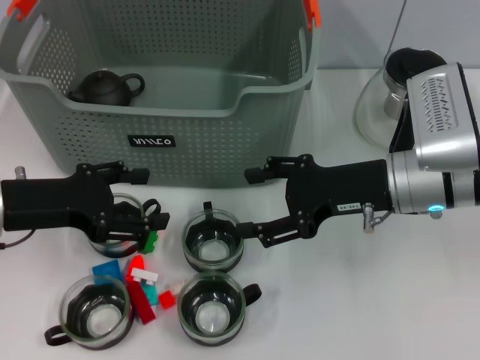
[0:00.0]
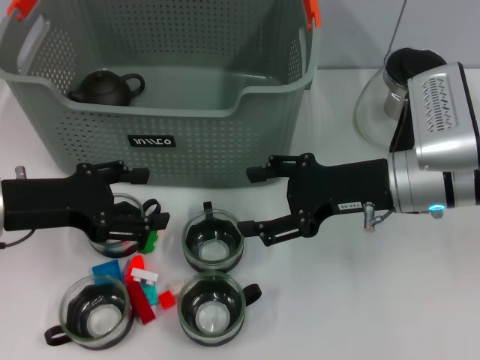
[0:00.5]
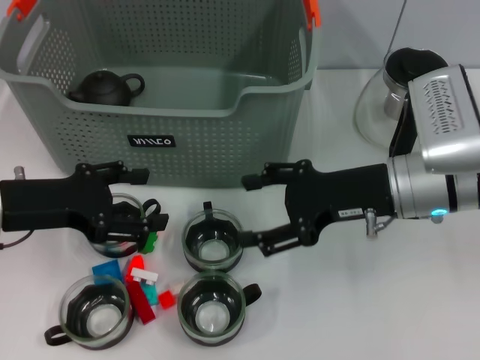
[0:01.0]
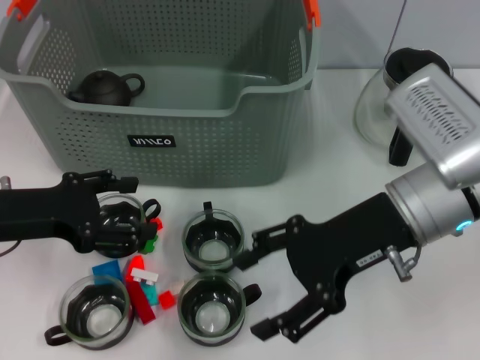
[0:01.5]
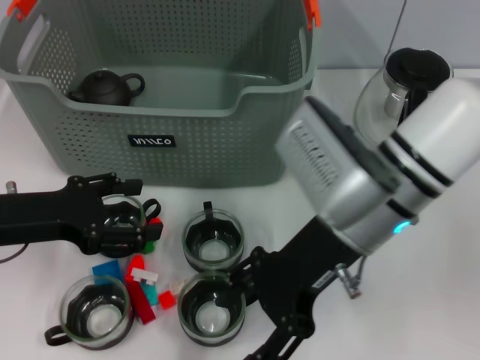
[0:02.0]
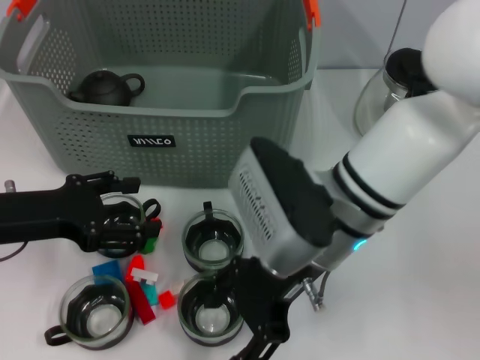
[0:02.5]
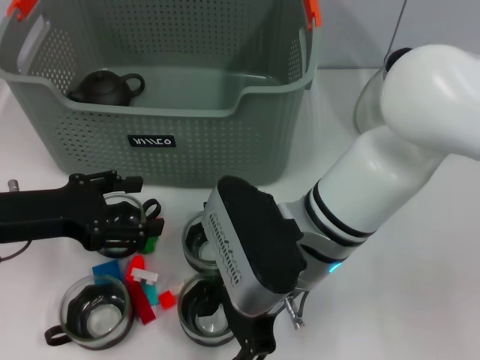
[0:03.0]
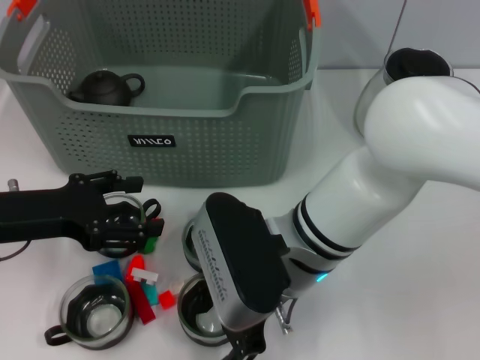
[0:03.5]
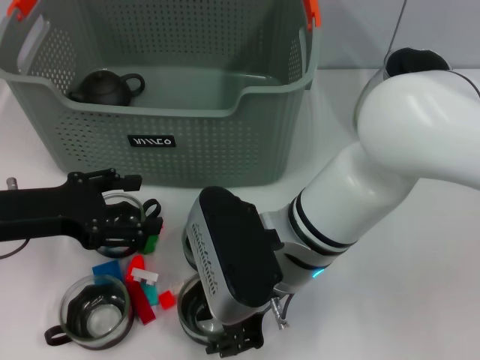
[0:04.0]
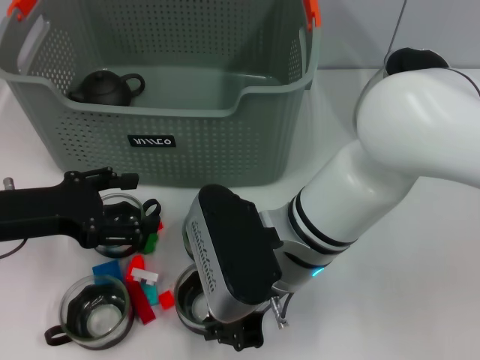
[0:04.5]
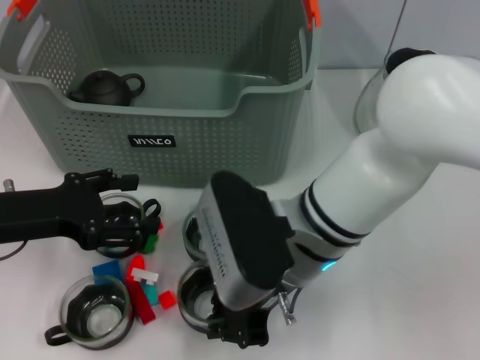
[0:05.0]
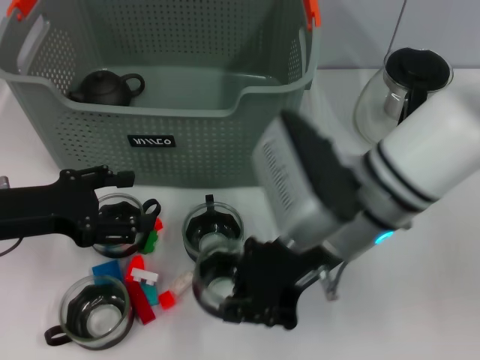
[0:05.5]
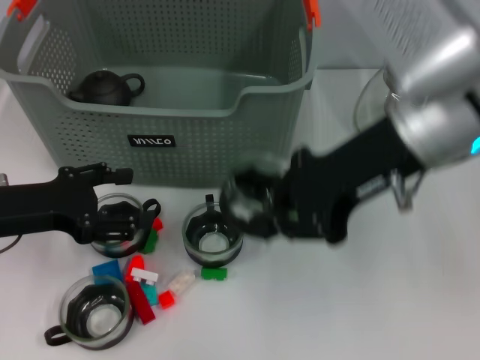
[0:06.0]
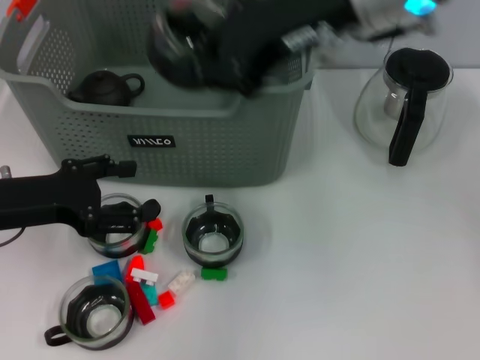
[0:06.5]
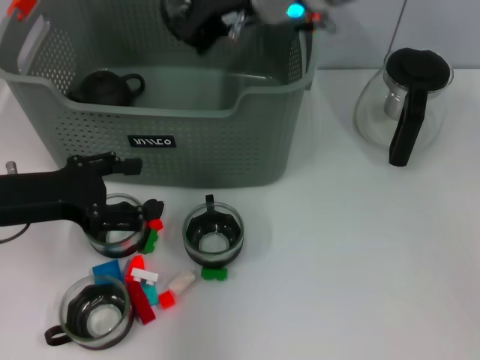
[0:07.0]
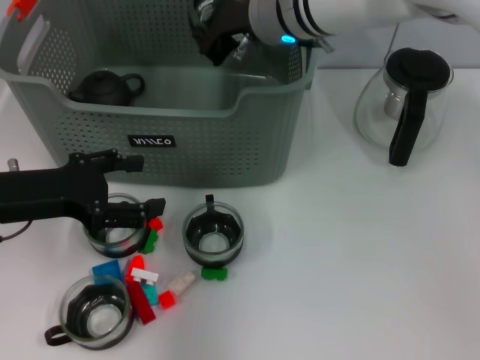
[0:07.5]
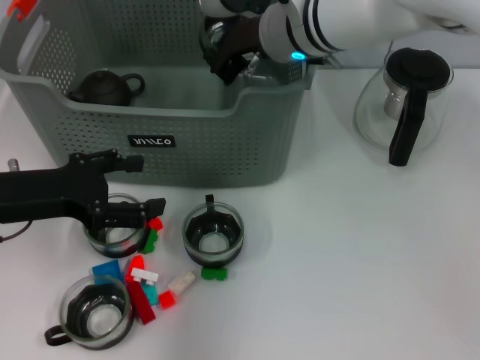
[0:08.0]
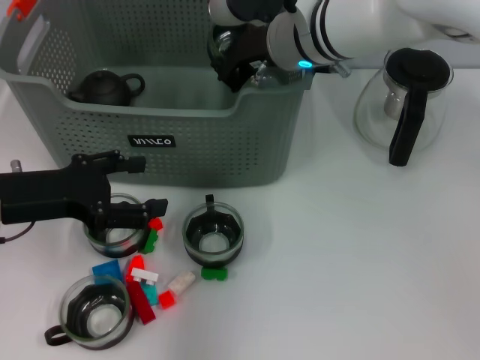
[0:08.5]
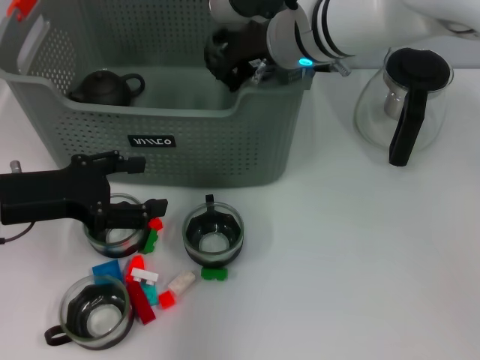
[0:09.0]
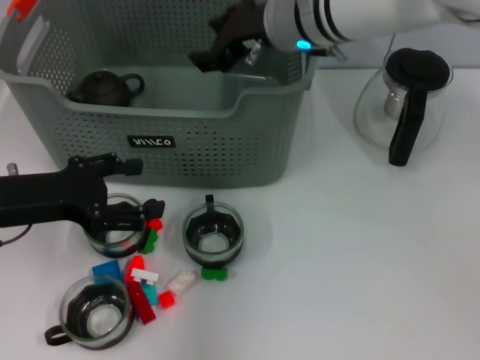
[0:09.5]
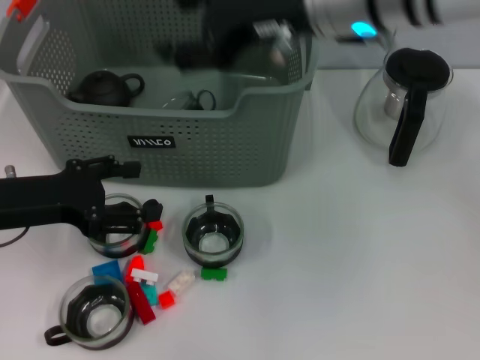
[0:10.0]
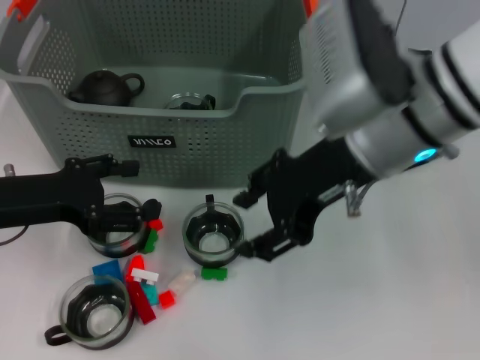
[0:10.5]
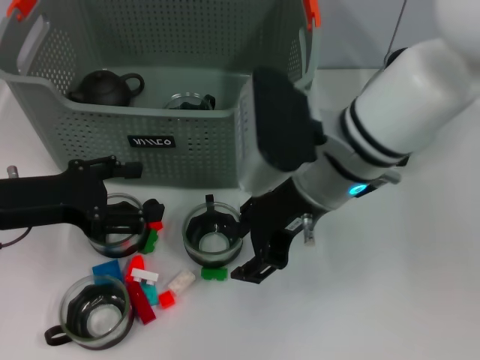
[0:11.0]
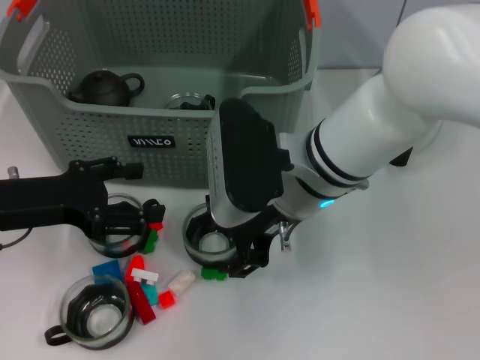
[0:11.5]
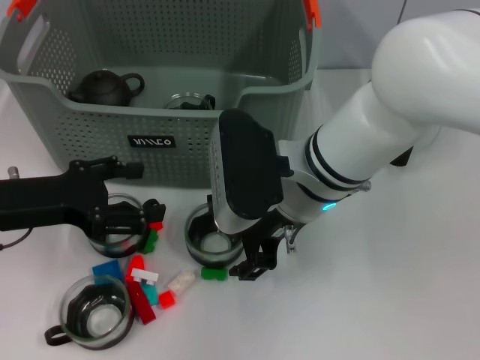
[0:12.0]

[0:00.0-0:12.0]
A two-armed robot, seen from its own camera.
Task of the whole recording: pick up the teacup on the table and place it into the storage bin, pick up the block on the table and place it into the storage bin.
Step, 0:00.0 to 0:04.5: Grasp the cup with right gripper.
Step, 0:05.0 to 0:09.5: Place the cup in the storage box with right gripper.
0:00.0 to 0:02.0: The right gripper is displaced to the left by approximately 10 cm.
0:02.0 to 0:04.0: The right gripper shifts some 5 cm to the left, and closes up.
0:04.0 to 0:06.0: The right gripper goes approximately 15 cm upward and to the right, and closes.
0:06.0 to 0:08.0: The right gripper is displaced forward and to the left by about 15 cm.
0:08.0 to 0:10.0: The right gripper heads backward and upward, covering some 10 cm, and opens up.
0:10.0 to 0:12.0: The right gripper goes approximately 15 cm downward.

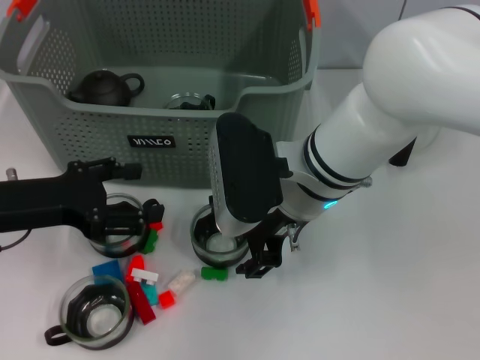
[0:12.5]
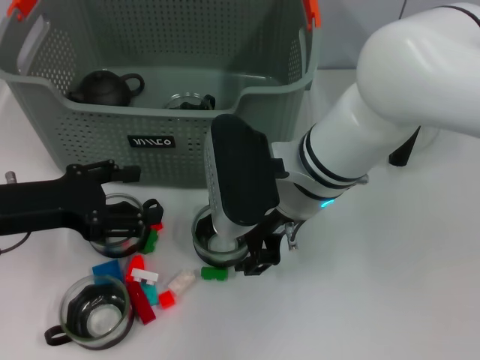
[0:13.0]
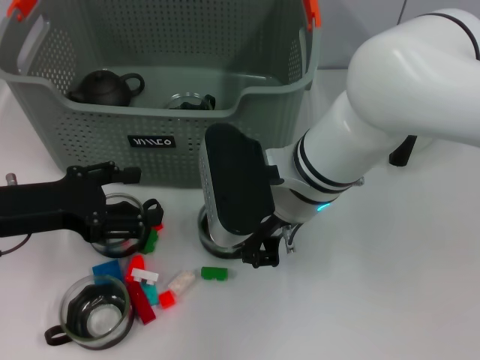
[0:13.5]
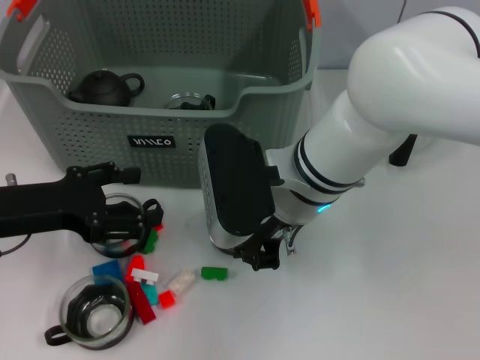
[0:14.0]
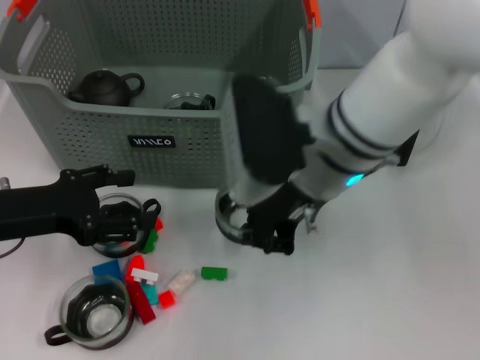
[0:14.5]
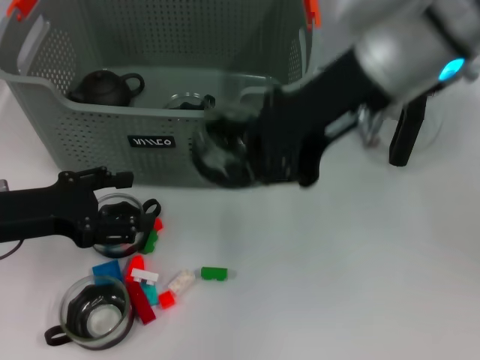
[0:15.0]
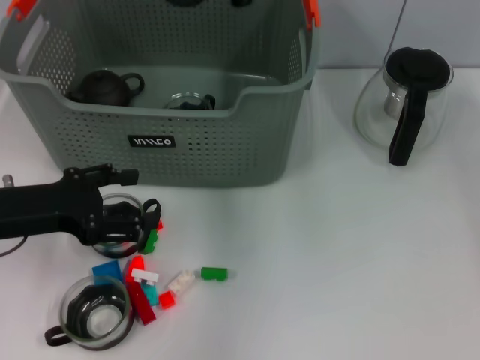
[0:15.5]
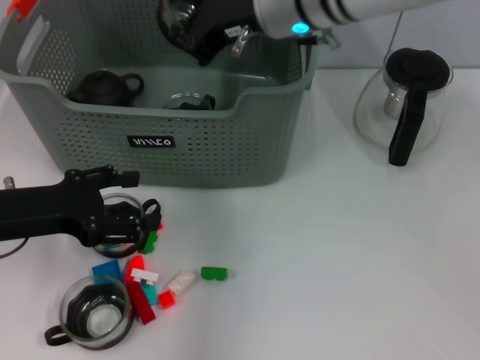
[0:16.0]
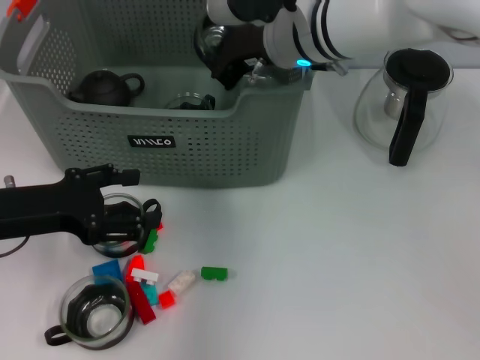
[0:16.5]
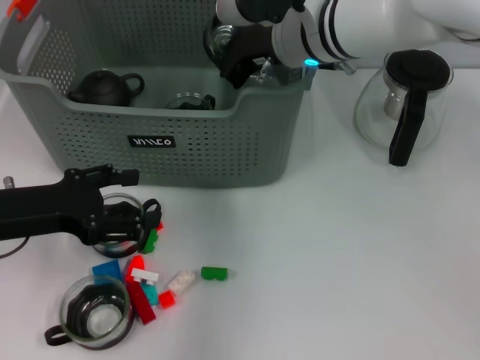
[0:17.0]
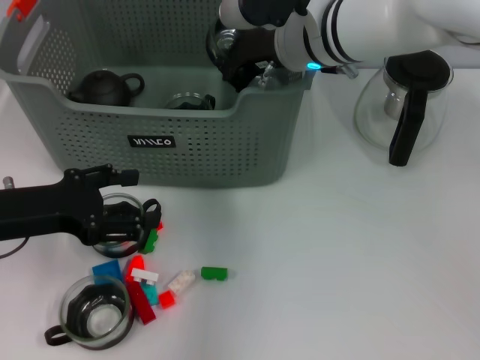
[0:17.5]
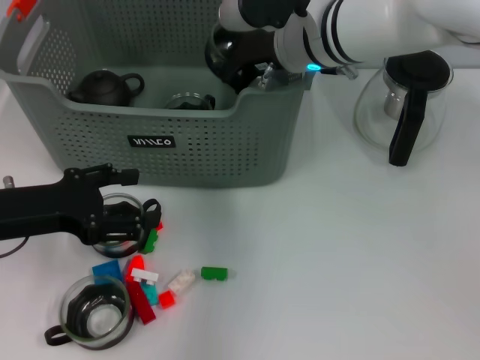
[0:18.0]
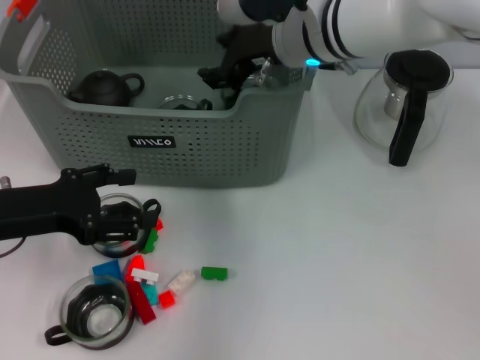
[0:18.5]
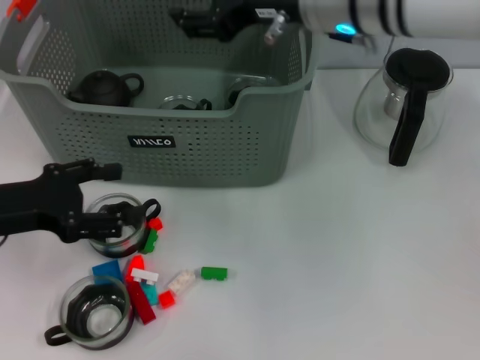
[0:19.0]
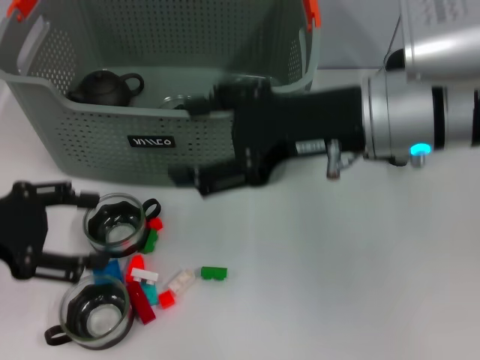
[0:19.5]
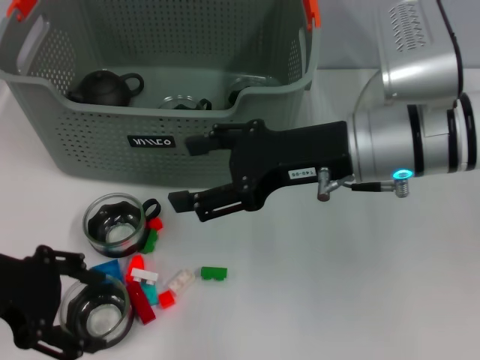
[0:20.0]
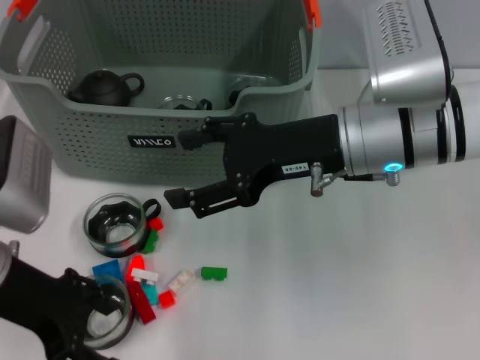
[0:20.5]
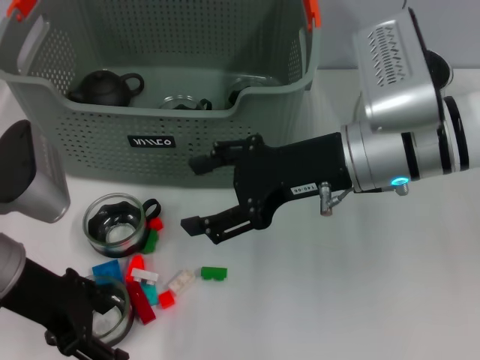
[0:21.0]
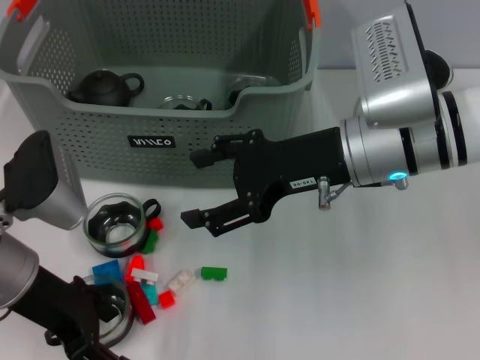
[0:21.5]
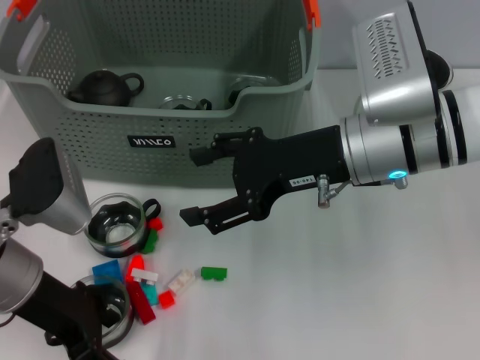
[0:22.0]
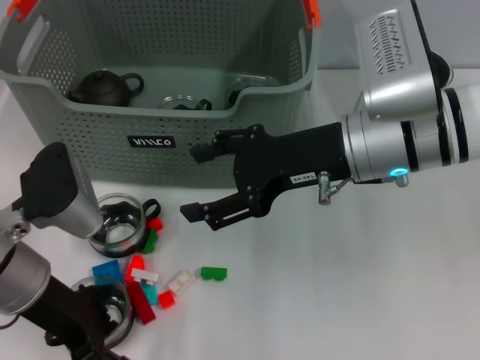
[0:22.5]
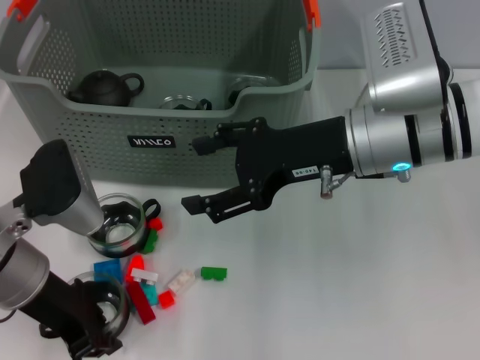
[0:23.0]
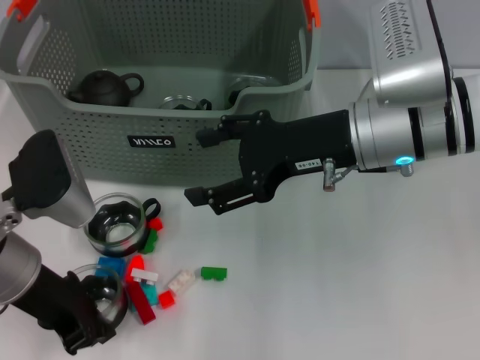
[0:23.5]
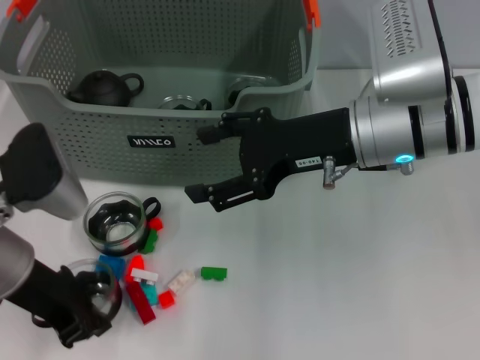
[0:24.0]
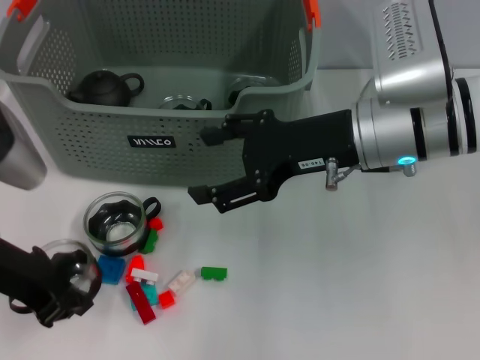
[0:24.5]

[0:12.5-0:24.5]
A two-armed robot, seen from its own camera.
Task of the whole recording: pick up the teacup on the table and place it into the storage bin, pick up the block on the table and place it into the storage bin.
Step, 0:14.0 to 0:18.5: Place the cup in the storage box with right gripper.
Step, 0:19.5 to 0:23.0: Grasp the cup with left gripper.
0:12.5 to 0:14.5: The right gripper closes its fingers.
0:14.5 to 0:16.5: The right gripper travels forward by some 10 cm, and moves roughly 15 cm upward and comes back.
0:16.5 to 0:18.5: The right gripper opens.
0:18.5 to 0:20.5: The right gripper travels backward and to the right by approximately 10 cm, and opens its fingers. Meanwhile the left gripper heads to the right, covering roughly 5 cm.
0:20.5 to 0:22.5: The grippers stay close to where they were, moving slightly.
0:22.5 to 0:24.5: The left gripper closes its fingers.

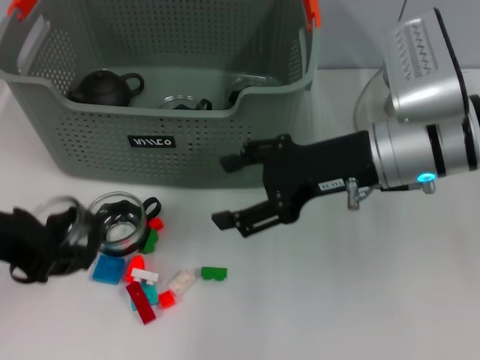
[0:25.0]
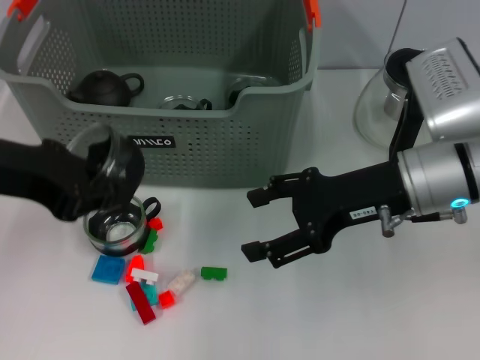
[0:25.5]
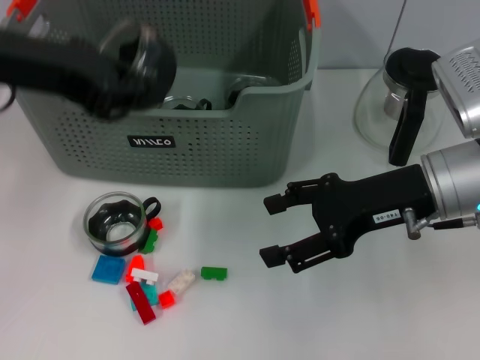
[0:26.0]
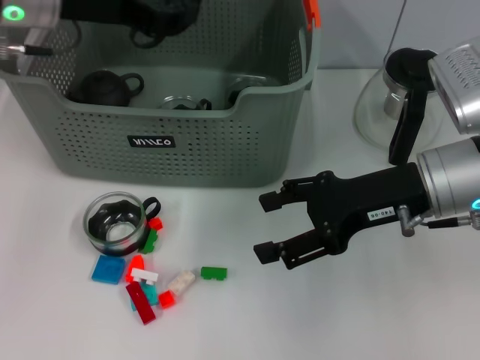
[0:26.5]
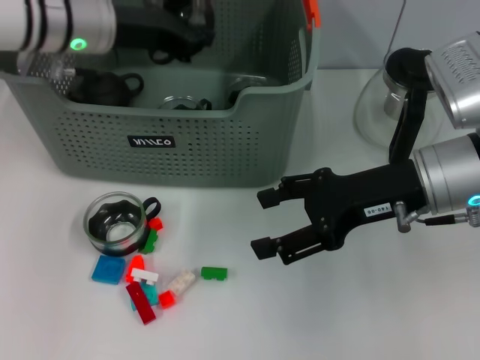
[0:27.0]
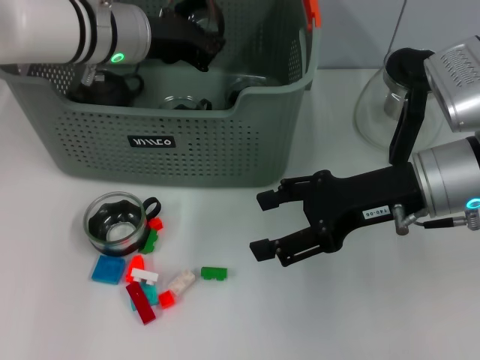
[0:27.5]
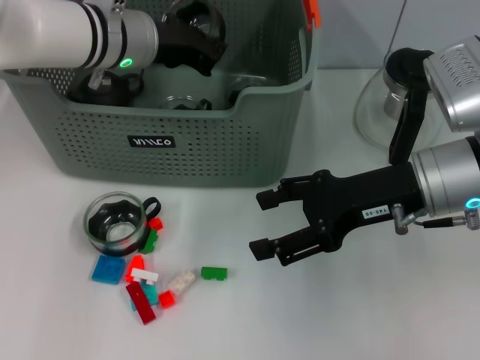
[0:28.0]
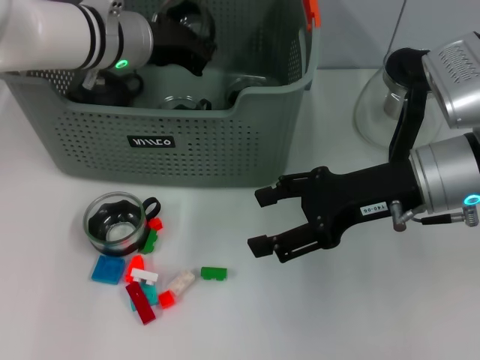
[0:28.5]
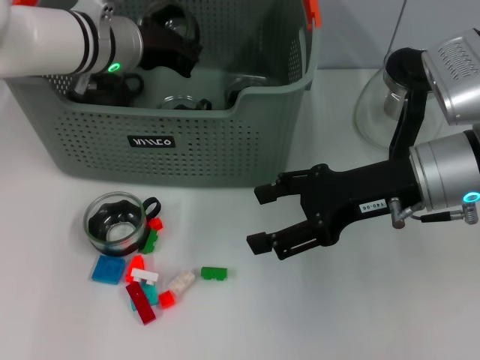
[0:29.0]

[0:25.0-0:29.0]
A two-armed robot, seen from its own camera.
Task of the whole recording: pick up the teacup on the table and place it into the storage bin, pick up the block on the table and place it into the storage bin.
0:25.0 to 0:27.0: The left gripper heads forward and to the right, covering about 20 cm.
0:27.0 to 0:29.0: There are only small adjustments of the grippers.
